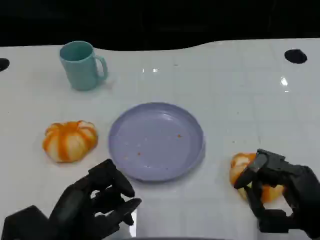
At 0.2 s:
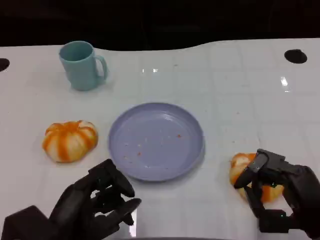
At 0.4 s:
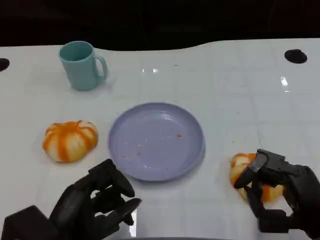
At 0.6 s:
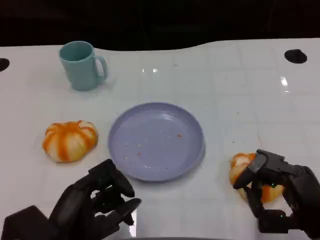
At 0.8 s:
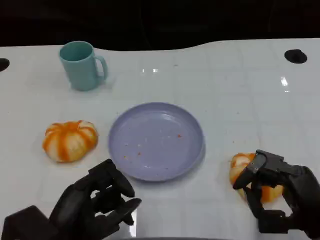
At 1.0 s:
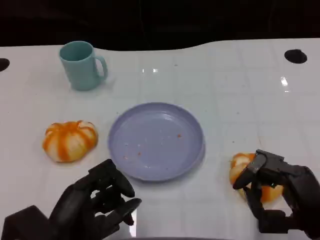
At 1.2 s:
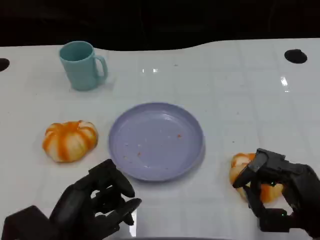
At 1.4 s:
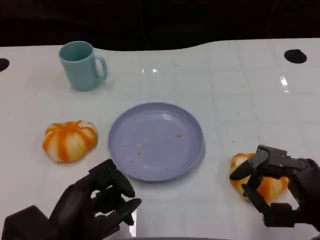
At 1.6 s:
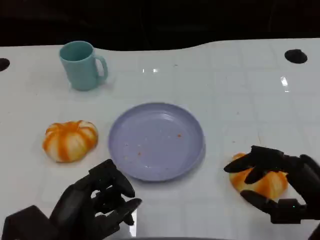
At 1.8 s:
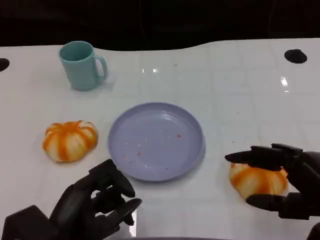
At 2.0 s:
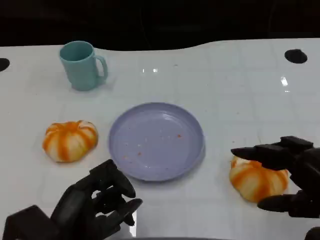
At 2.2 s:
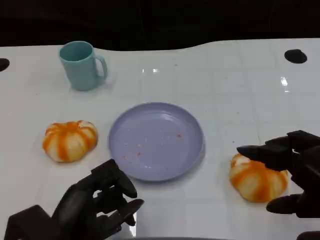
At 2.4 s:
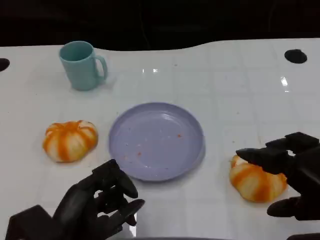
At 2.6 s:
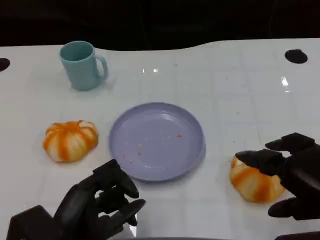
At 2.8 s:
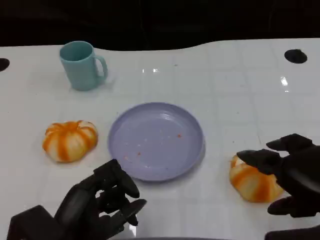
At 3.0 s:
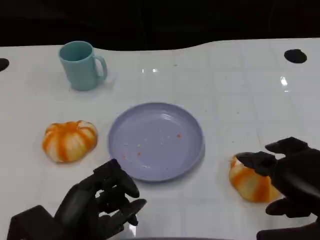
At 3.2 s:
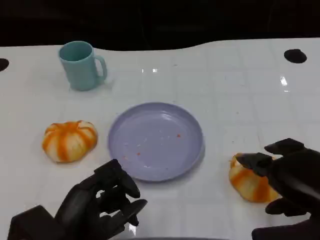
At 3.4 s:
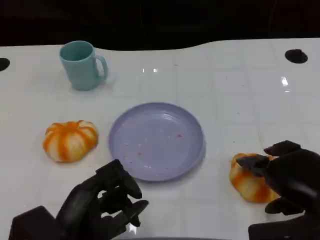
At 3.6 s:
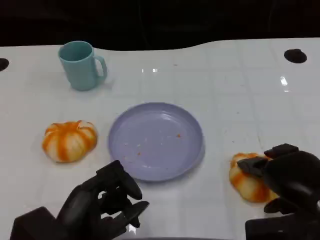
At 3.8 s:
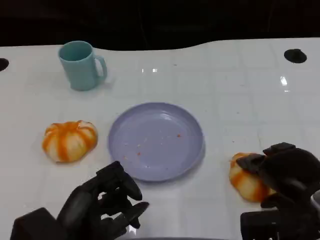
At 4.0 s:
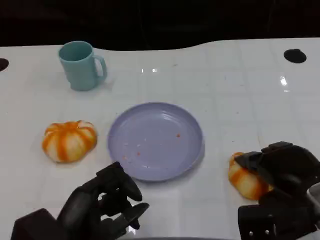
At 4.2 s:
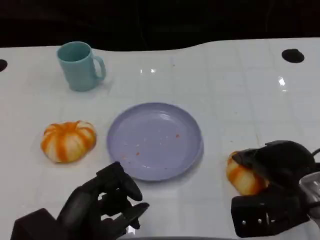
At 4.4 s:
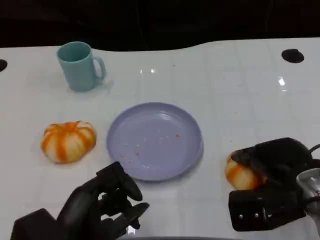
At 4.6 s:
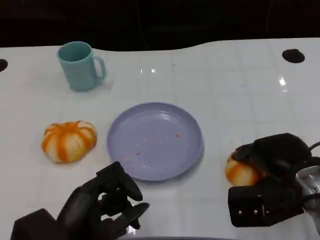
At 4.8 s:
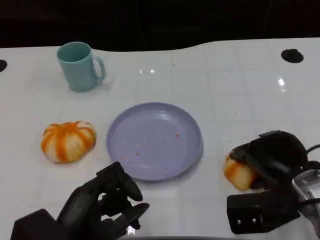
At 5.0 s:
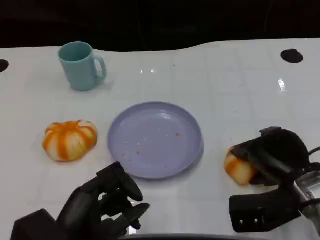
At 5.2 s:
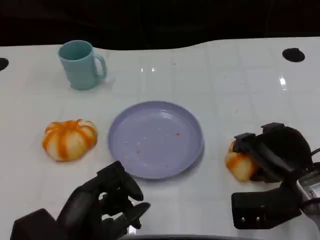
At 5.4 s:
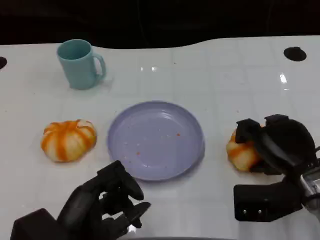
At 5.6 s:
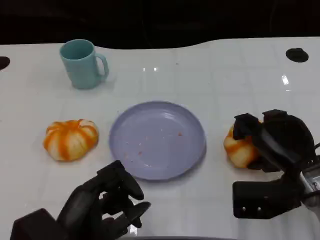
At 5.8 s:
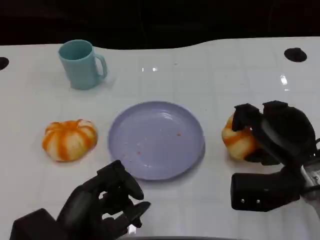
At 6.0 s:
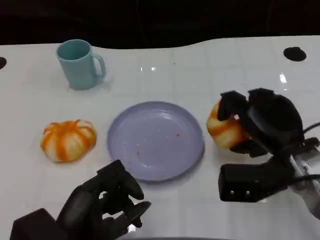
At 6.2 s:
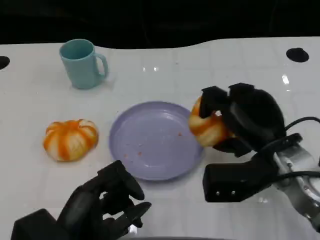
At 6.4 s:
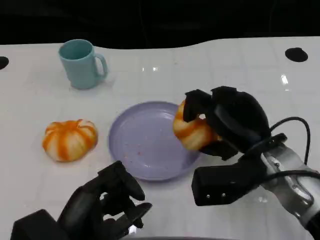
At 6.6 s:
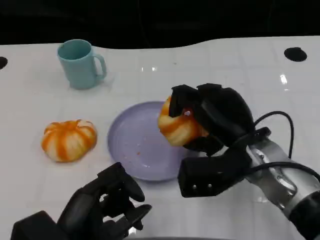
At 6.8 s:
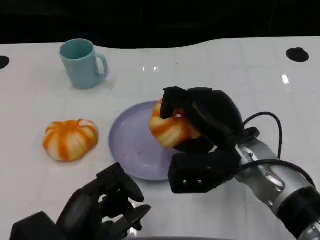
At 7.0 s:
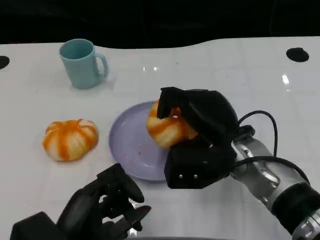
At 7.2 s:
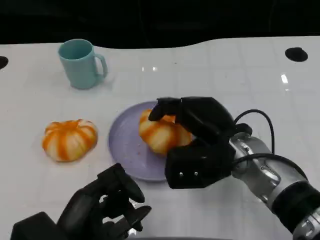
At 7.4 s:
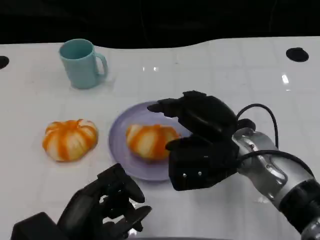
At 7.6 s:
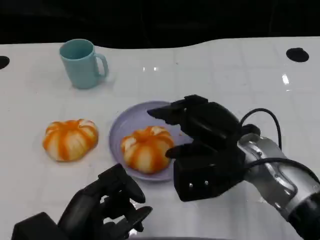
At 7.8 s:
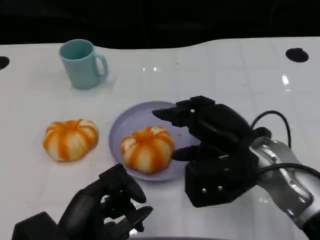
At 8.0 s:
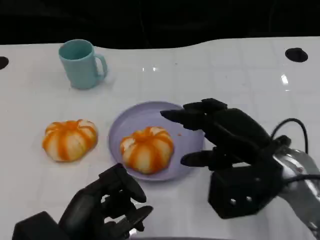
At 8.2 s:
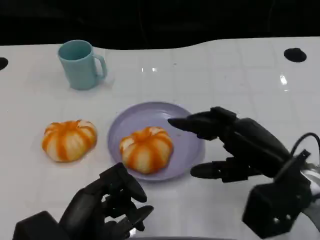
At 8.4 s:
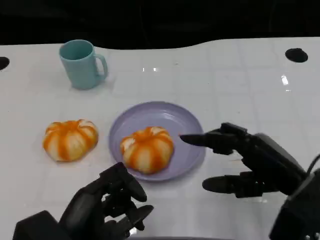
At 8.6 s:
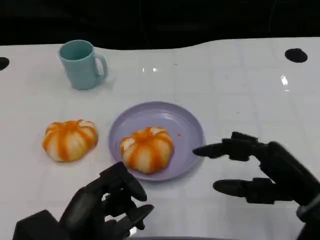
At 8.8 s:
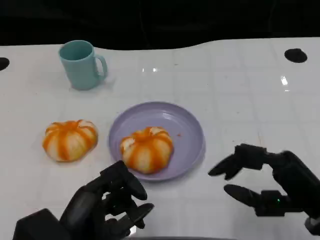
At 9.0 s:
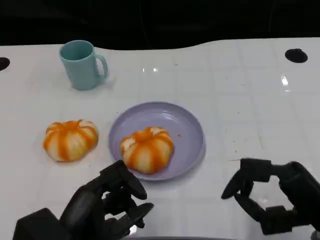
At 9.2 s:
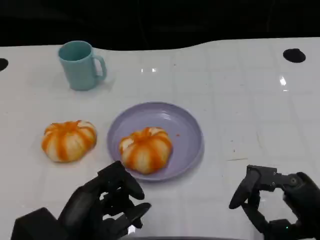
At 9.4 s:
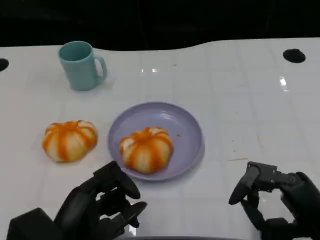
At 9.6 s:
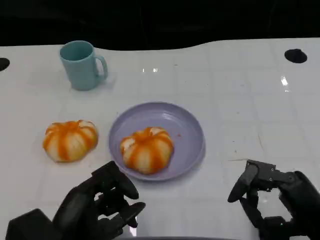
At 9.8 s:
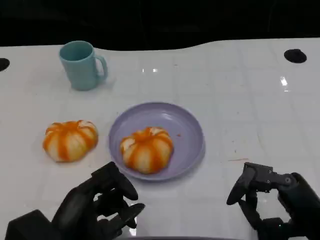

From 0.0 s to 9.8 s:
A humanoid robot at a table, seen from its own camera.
Task of the whole recording: Grasp the bread from the table and place it into the plate.
From 0.0 s to 1.4 s: The hands stay close to where they were, moving slightly.
From 2.8 s to 4.2 s: The right hand heads forward, covering roughly 5 cm.
From 5.6 s to 7.0 s: The right hand heads to the left, covering approximately 10 cm.
From 7.0 s to 8.4 s: The right hand moves to the right and backward, approximately 15 cm.
From 8.4 s to 9.8 s: The right hand travels backward by roughly 5 cm.

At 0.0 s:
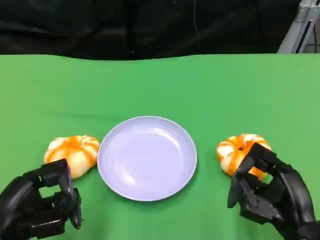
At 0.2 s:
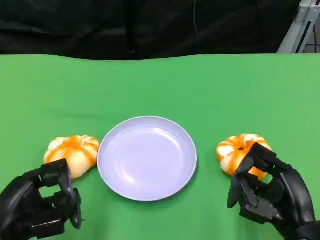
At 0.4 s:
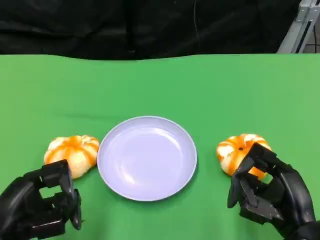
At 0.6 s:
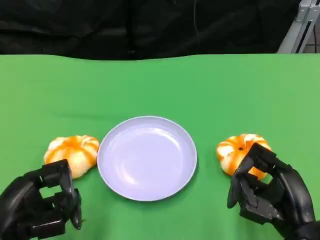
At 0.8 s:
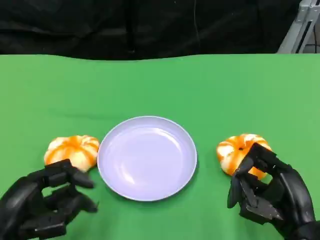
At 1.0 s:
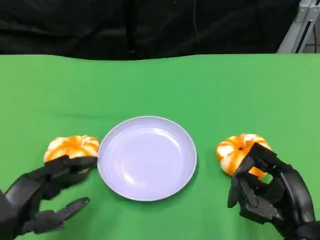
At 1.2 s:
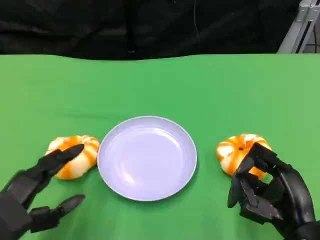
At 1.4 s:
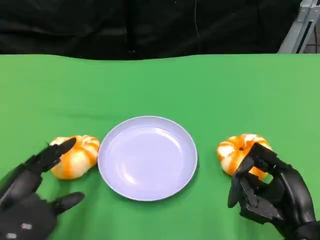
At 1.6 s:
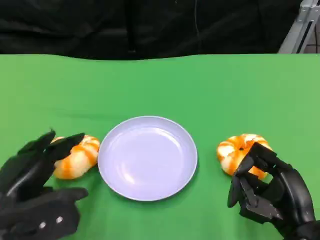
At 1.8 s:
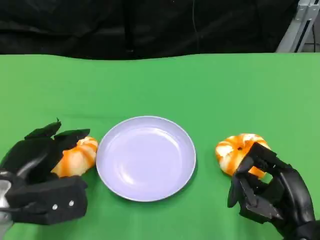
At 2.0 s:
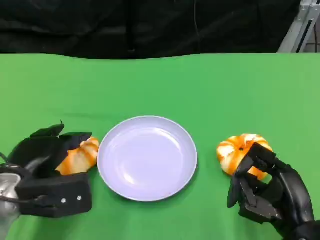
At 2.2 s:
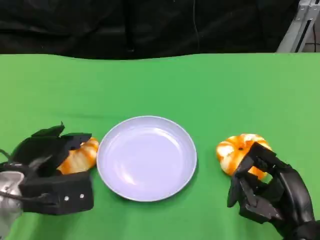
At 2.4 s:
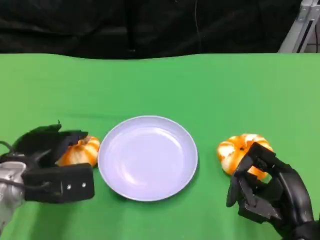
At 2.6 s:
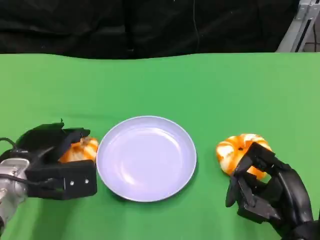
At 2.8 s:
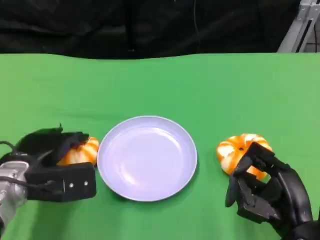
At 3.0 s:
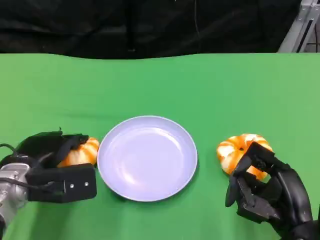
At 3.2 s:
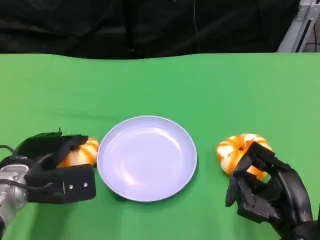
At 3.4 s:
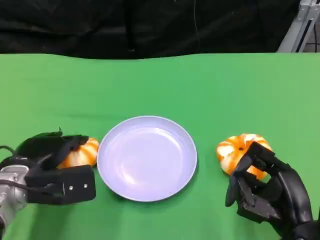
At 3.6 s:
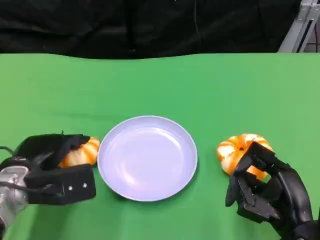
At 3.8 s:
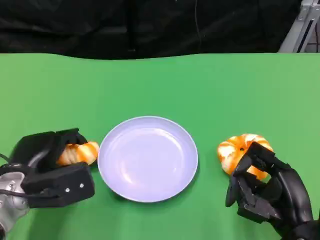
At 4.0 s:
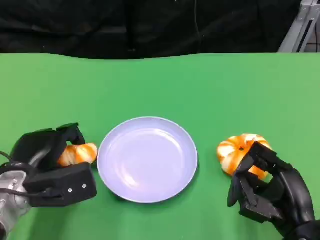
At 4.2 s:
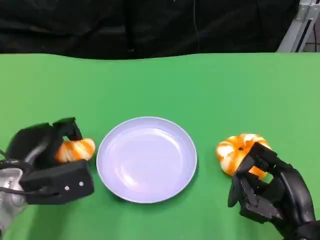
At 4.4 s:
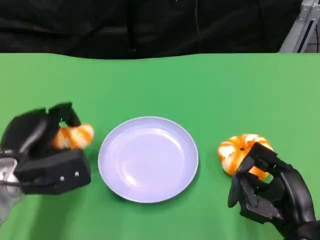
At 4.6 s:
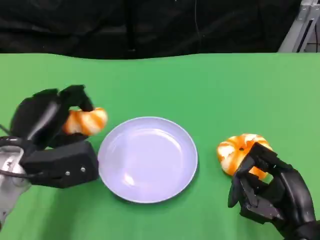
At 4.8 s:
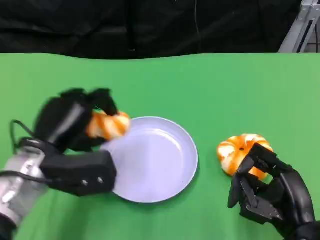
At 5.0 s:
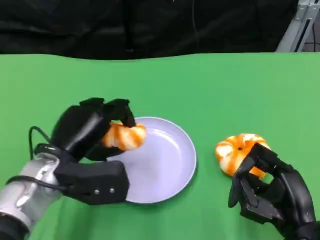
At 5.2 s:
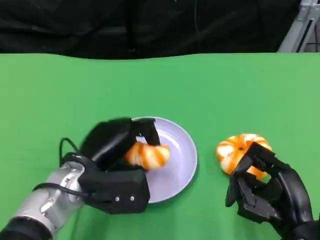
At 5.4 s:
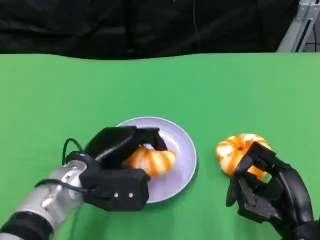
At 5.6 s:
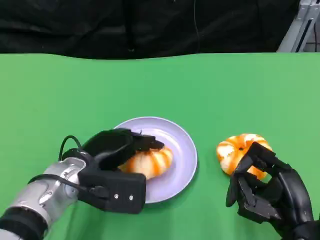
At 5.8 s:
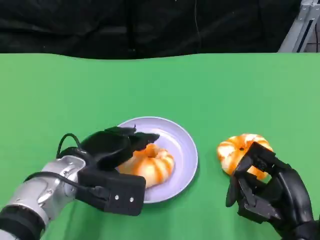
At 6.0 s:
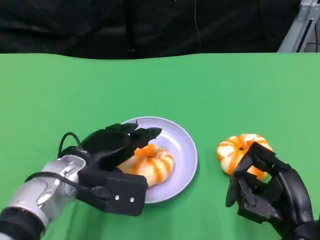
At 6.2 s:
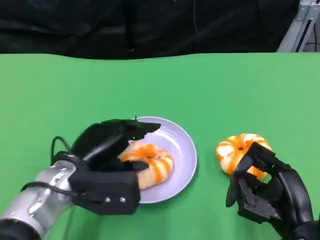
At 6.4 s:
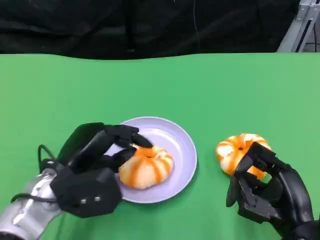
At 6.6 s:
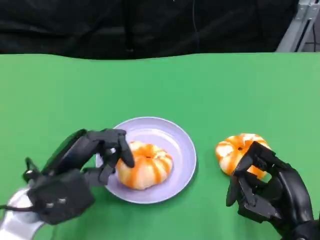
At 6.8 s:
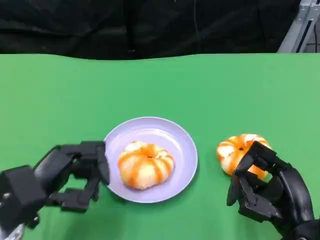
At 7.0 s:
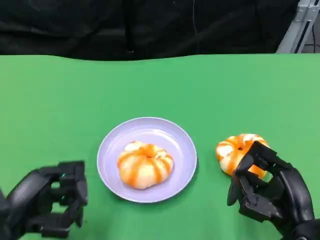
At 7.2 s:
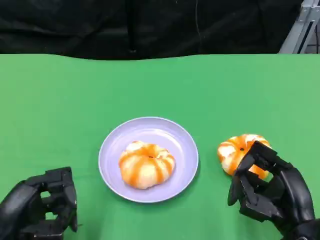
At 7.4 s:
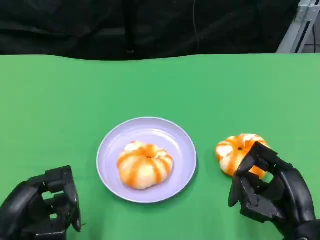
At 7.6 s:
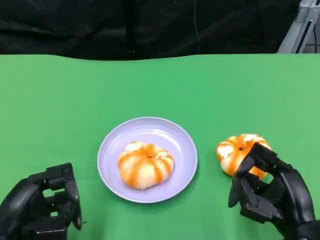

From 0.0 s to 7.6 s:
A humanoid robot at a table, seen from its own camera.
Task of the whole recording: Grasp the bread from the table and place it into the plate.
From 0.0 s to 1.6 s: The left hand moves some 5 cm.
From 1.6 s to 3.0 s: The left hand heads forward, covering roughly 5 cm.
From 4.6 s to 6.0 s: The left hand shifts about 5 cm to the right.
From 6.0 s to 7.6 s: The left hand goes about 15 cm backward and to the left.

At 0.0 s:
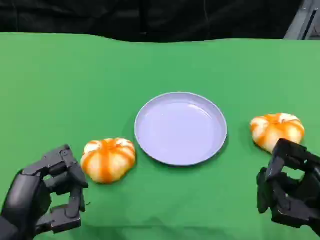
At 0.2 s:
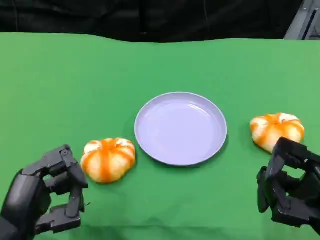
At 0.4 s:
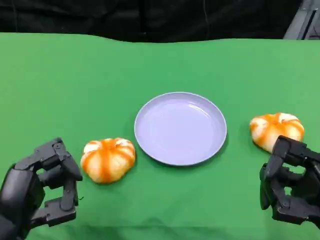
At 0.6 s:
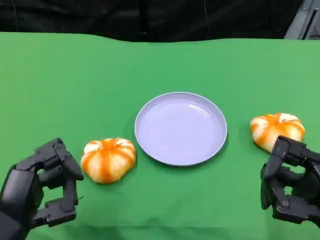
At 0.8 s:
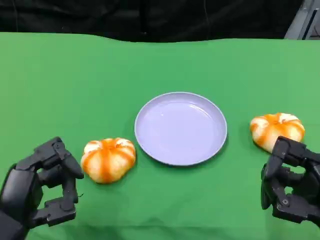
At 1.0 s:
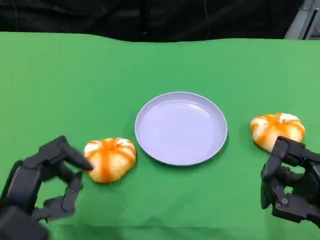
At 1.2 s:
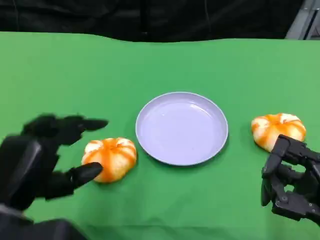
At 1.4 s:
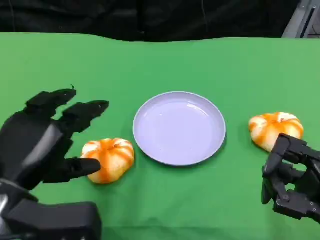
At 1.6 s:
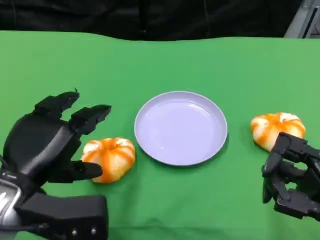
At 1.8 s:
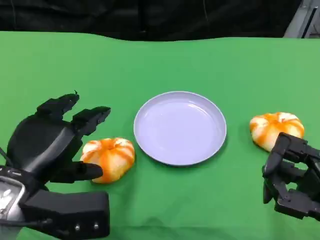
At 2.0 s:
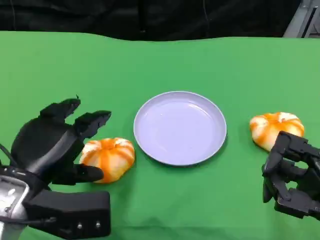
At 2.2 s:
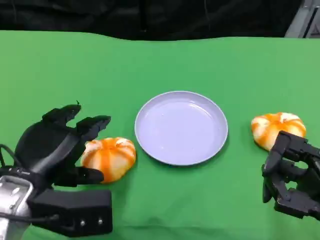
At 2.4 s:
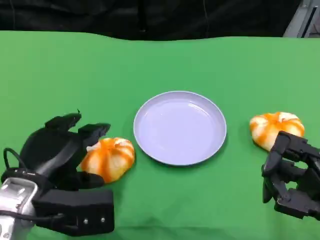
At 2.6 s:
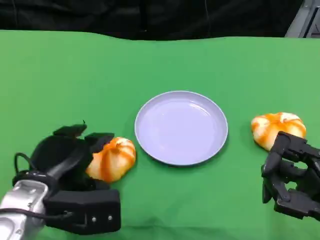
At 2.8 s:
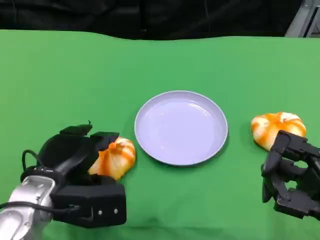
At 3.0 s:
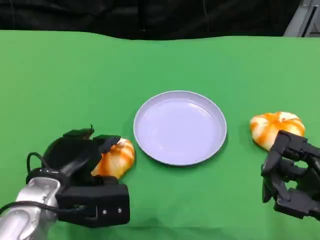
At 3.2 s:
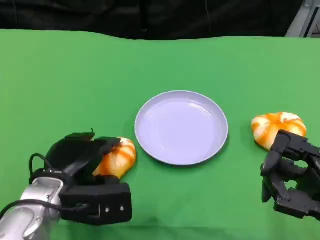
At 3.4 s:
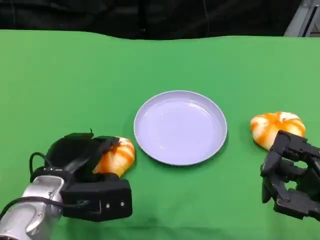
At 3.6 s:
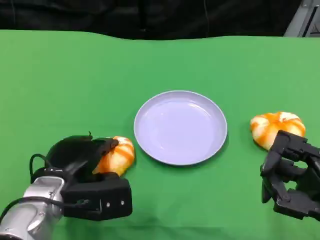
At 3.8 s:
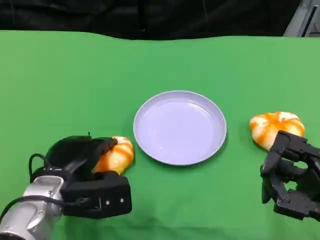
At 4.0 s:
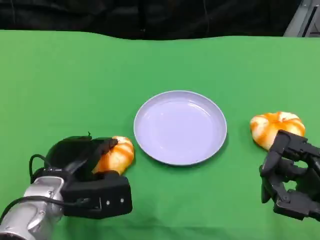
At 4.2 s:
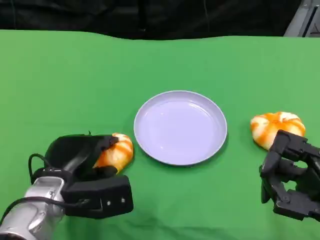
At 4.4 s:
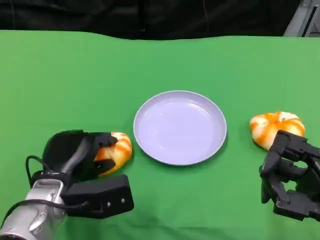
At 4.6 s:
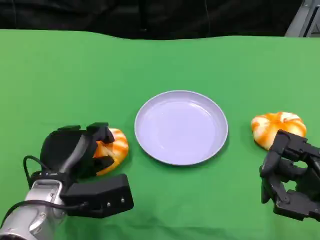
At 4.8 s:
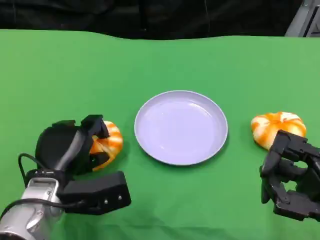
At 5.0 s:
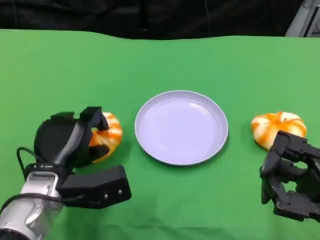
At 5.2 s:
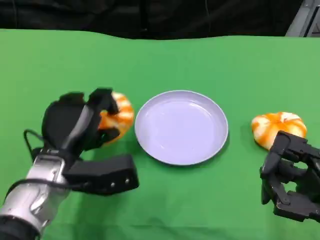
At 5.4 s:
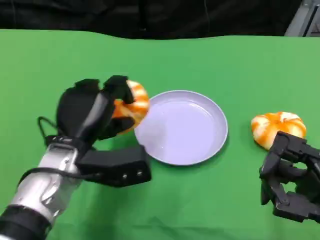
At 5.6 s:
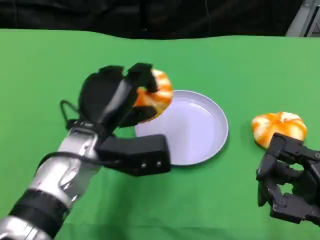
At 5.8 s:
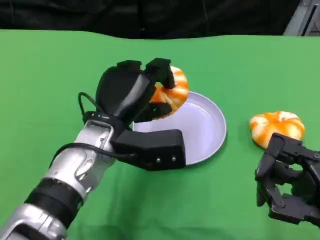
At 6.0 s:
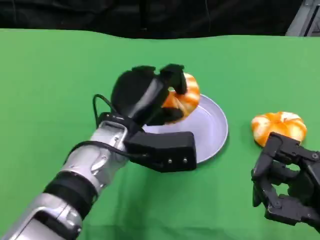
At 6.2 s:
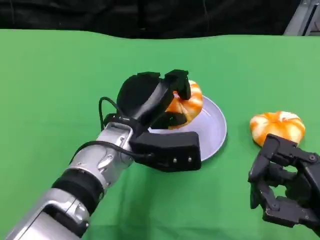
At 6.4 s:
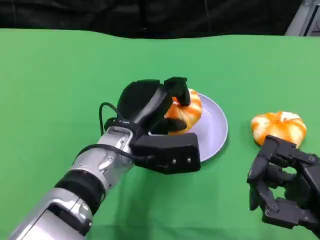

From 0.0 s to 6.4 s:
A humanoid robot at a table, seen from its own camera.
Task of the whole recording: Grasp the bread from the table and place it into the plate.
From 0.0 s to 1.6 s: The left hand is displaced forward by about 5 cm.
From 1.6 s to 3.2 s: The left hand heads downward, covering some 5 cm.
From 3.2 s to 4.8 s: The hands stay close to where they were, moving slightly.
From 4.8 s to 6.4 s: The left hand travels to the right by some 10 cm.
